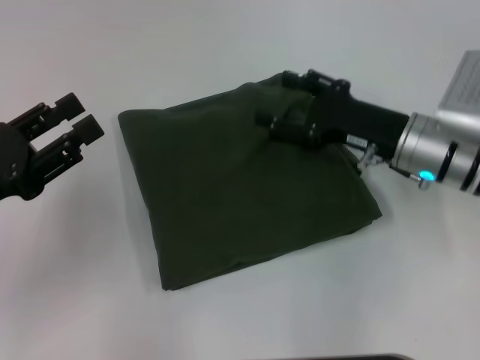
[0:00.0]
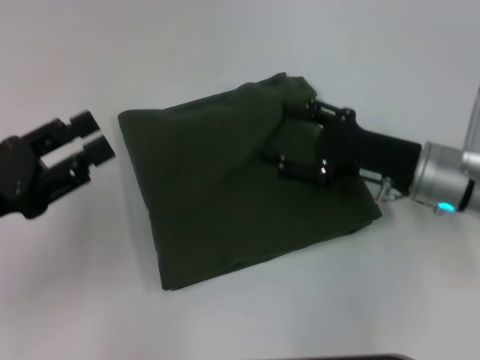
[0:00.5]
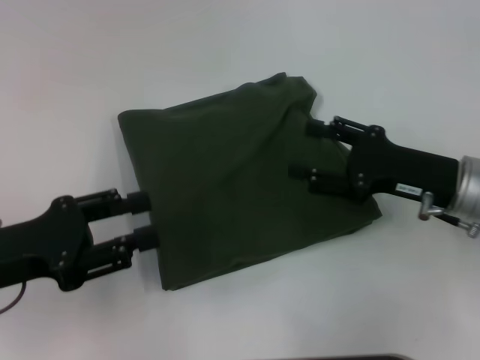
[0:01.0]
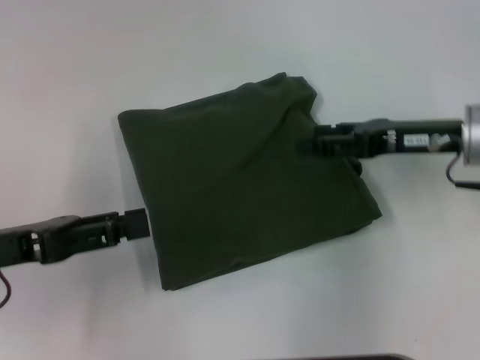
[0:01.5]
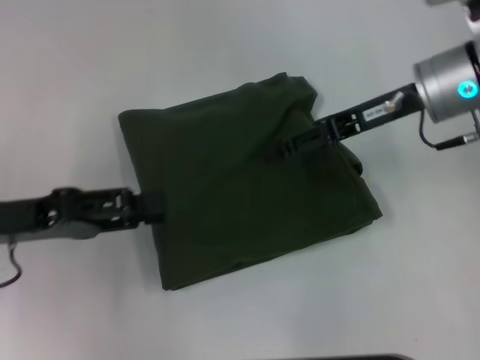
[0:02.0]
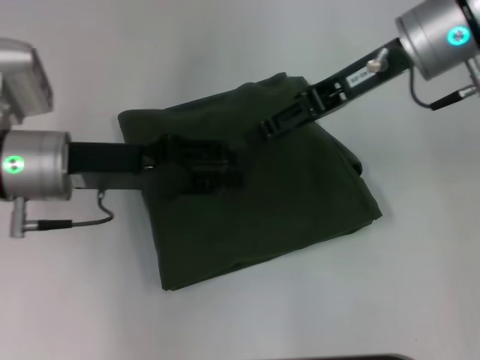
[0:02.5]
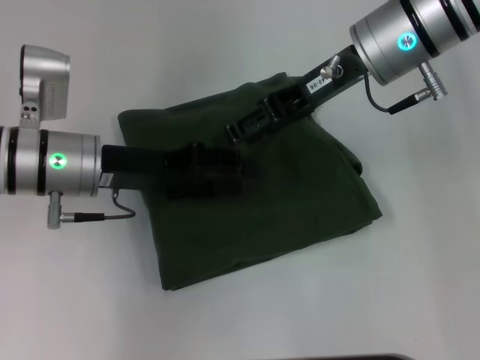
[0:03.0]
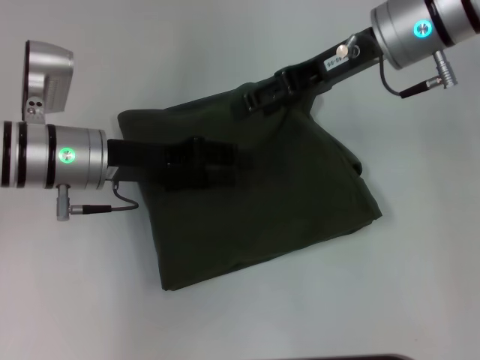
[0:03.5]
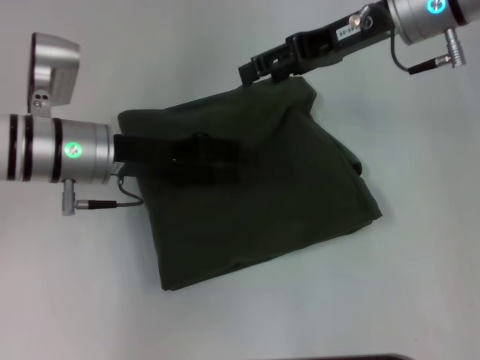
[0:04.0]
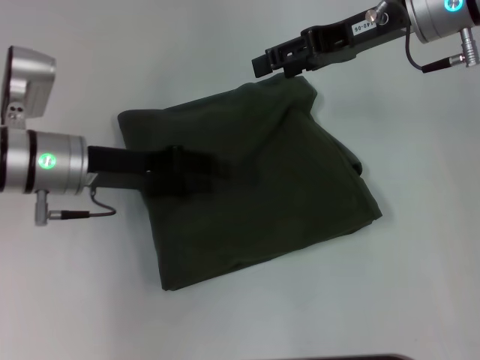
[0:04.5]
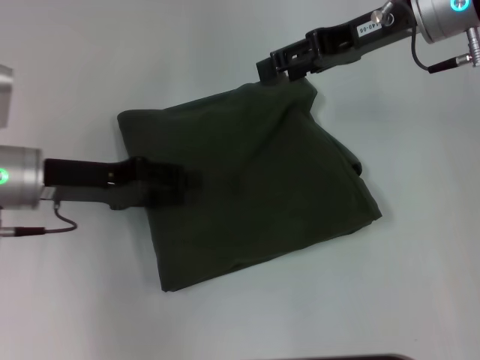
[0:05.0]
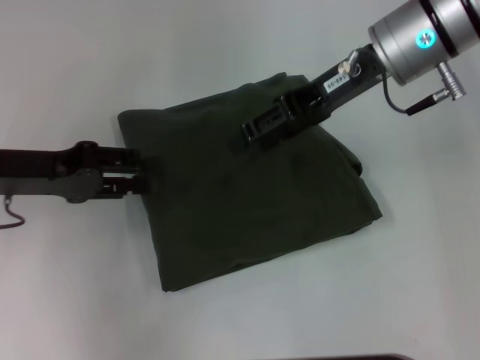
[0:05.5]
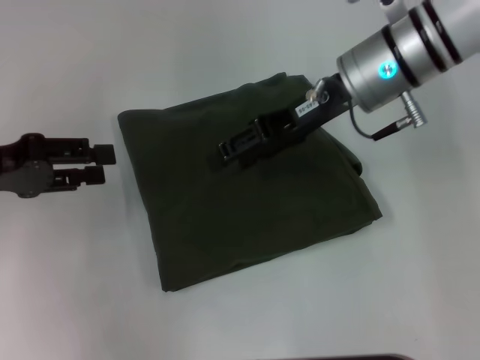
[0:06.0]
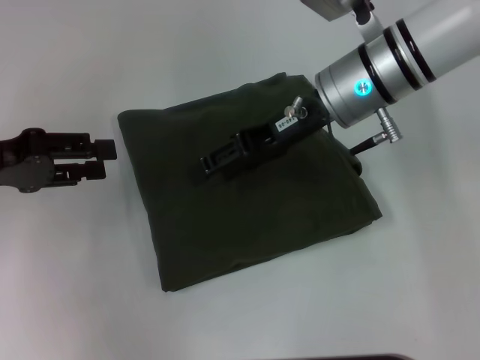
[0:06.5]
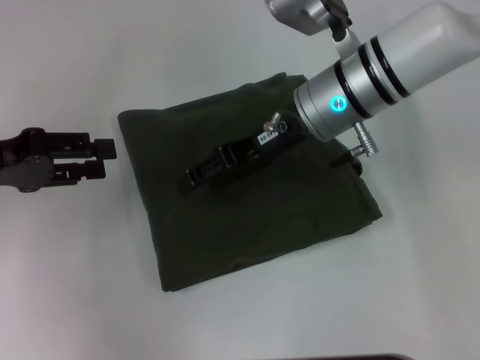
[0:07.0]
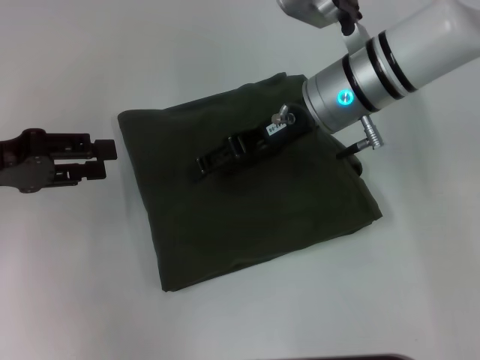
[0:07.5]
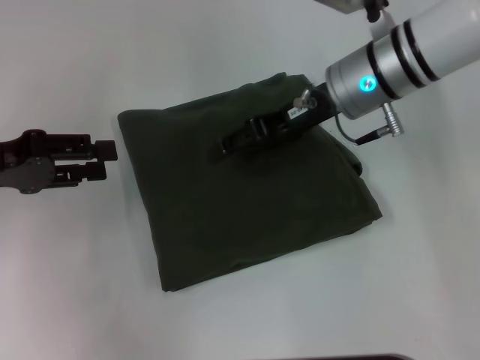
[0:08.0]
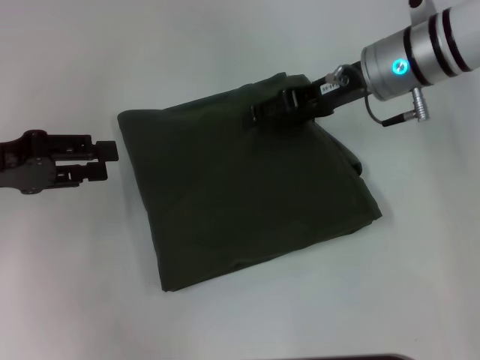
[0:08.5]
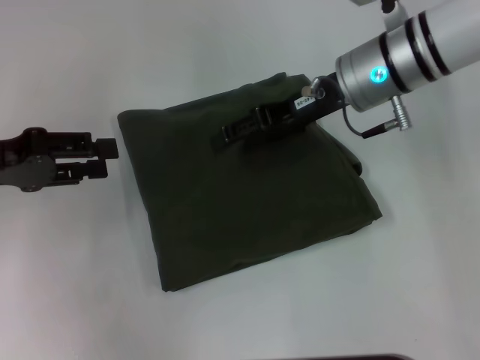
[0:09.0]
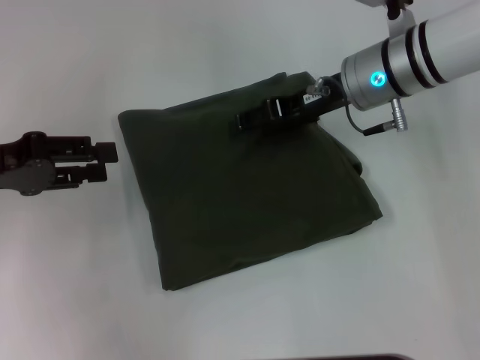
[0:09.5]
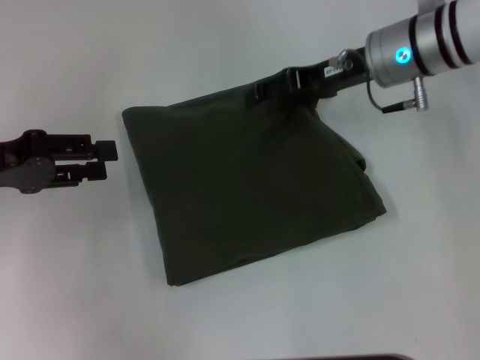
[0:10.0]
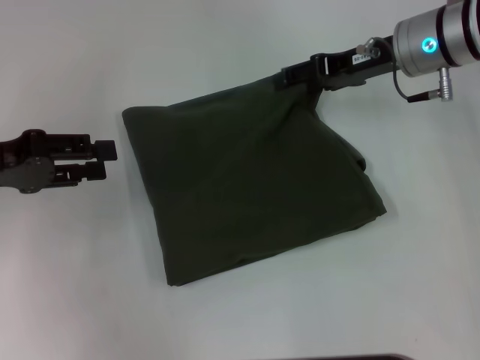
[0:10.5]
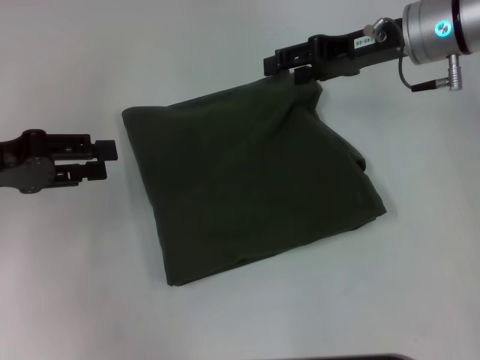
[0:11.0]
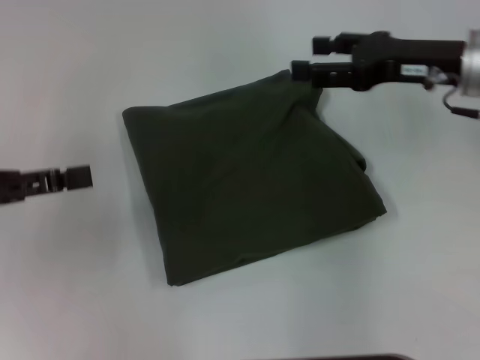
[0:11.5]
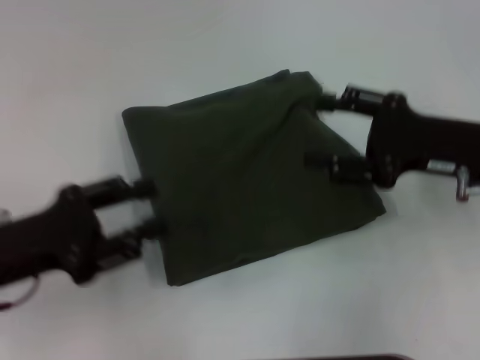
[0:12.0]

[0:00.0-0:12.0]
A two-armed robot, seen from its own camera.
0:00.0 to 0:02.0: The right gripper goes approximately 10 cm upward.
0:02.0 to 0:04.0: The right gripper shifts by some 5 cm. Meanwhile the left gripper heads to the right and forward, covering some 15 cm.
0:04.0 to 0:06.0: The right gripper changes place by some 5 cm; the left gripper goes approximately 15 cm to the left.
0:06.0 to 0:08.0: The grippers move only a little.
0:08.0 to 0:10.0: There are only small adjustments of the grippers.
0:10.0 to 0:12.0: The right gripper shifts some 15 cm backward and to the right. Meanwhile the left gripper travels backward by approximately 10 cm.

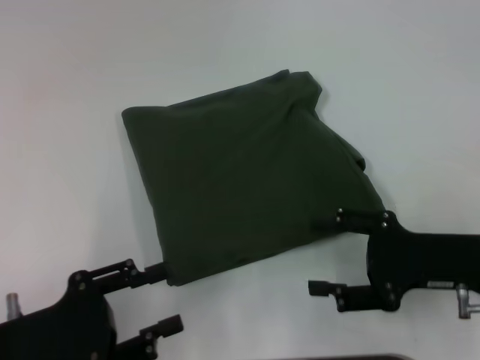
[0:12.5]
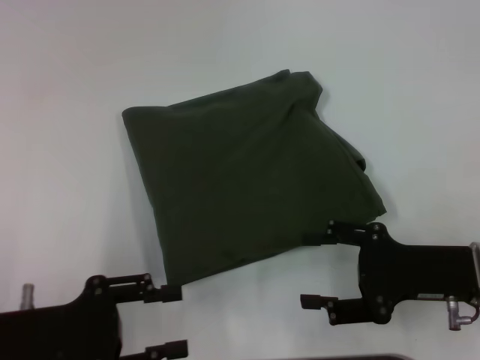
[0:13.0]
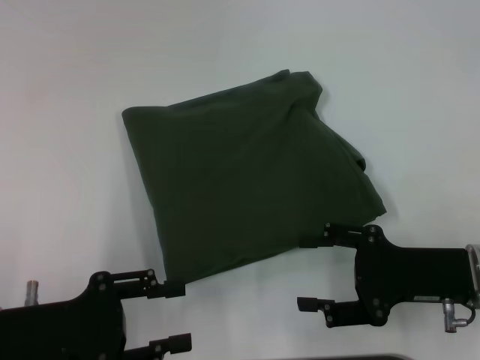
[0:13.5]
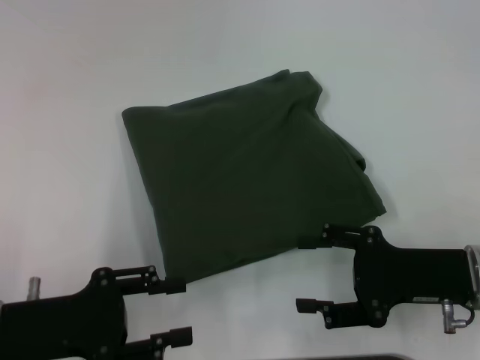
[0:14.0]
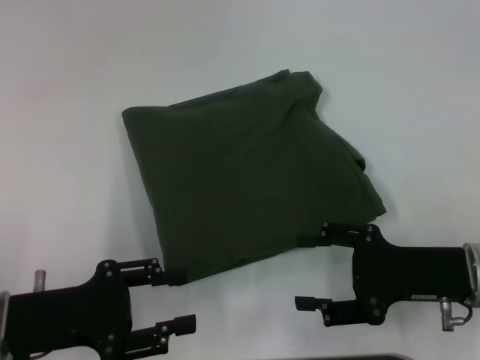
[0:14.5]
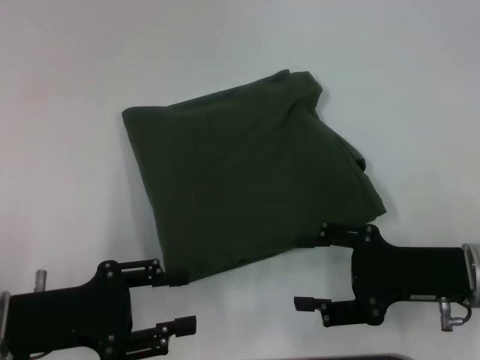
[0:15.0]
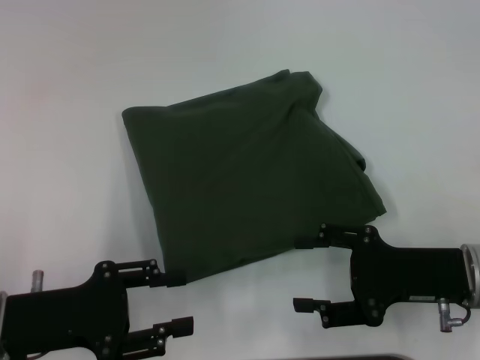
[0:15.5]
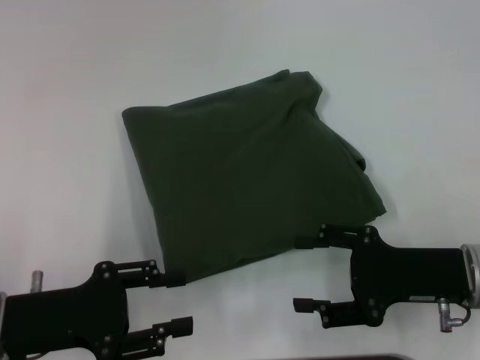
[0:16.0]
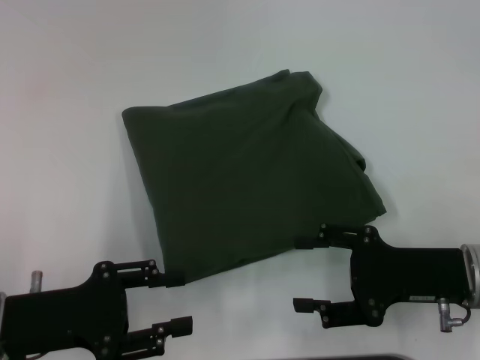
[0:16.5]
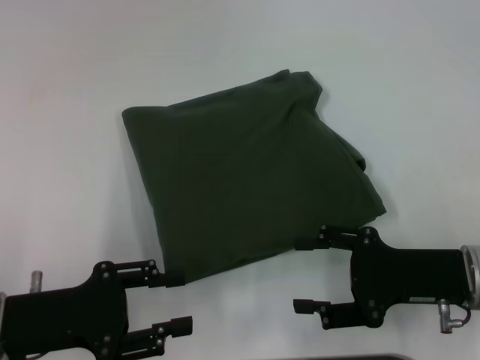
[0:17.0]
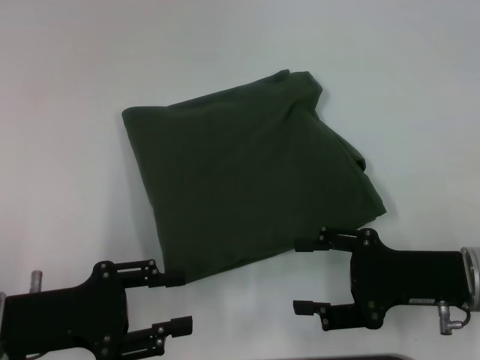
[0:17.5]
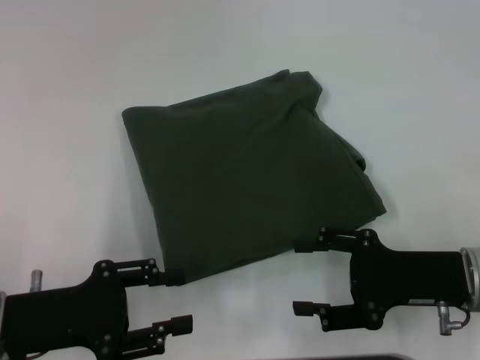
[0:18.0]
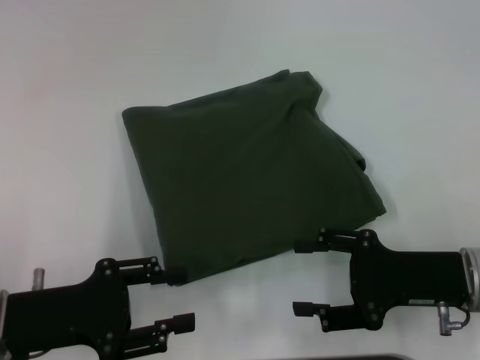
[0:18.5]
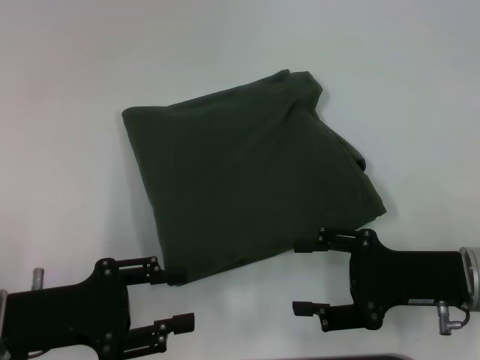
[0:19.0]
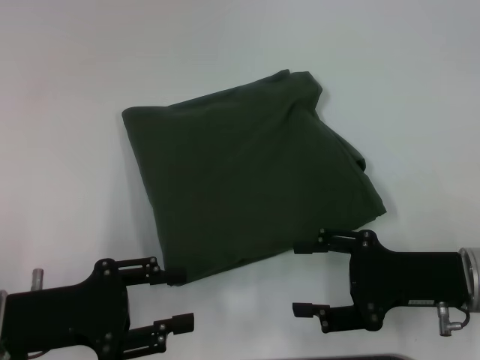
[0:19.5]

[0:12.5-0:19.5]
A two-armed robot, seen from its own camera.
0:12.5 to 0:14.5: The grippers make only small movements.
0:14.5 to 0:19.5: The two grippers keep their place.
